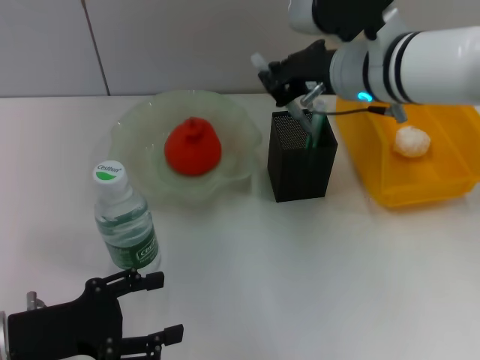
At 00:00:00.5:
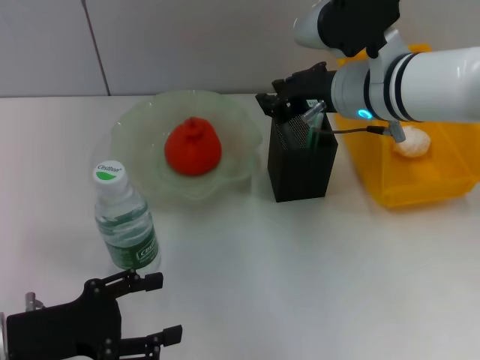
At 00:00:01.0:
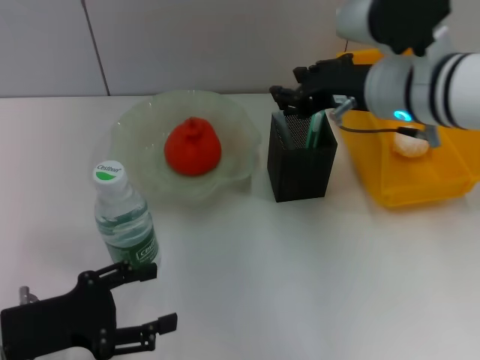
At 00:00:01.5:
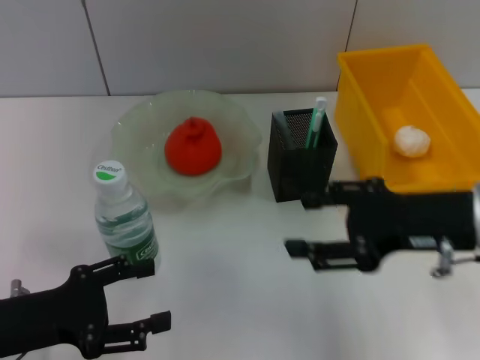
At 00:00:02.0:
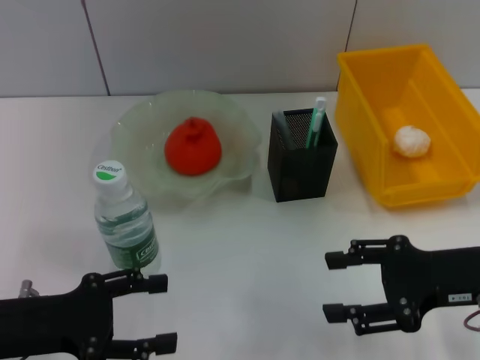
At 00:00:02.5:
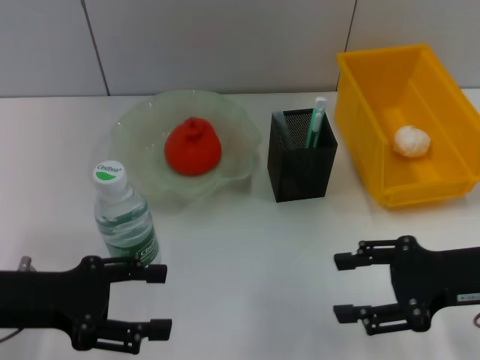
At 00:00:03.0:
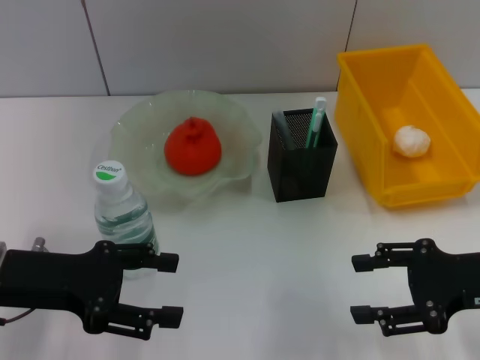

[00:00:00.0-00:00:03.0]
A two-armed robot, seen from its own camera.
00:00:00.0 to 00:00:01.5: The right gripper heads backward and to the right, covering roughly 15 cm, and opens up.
00:00:01.5 to 00:00:03.0: The left gripper goes approximately 5 cm forward. Meanwhile the right gripper shifts some 10 cm to the right and downward.
